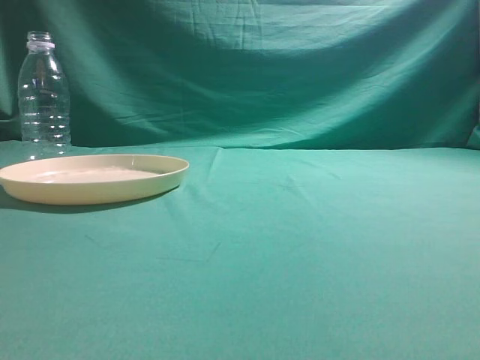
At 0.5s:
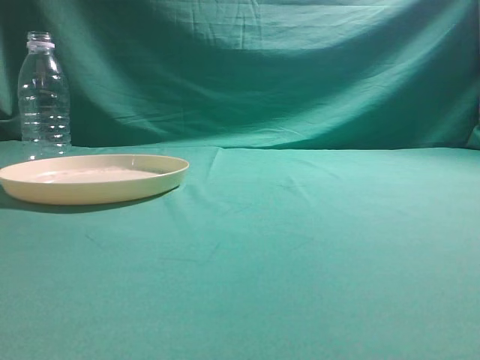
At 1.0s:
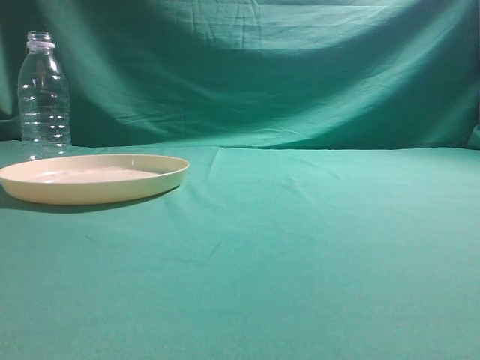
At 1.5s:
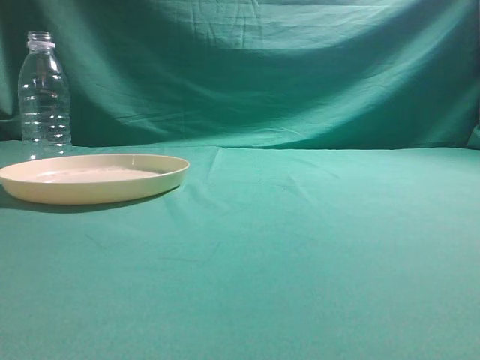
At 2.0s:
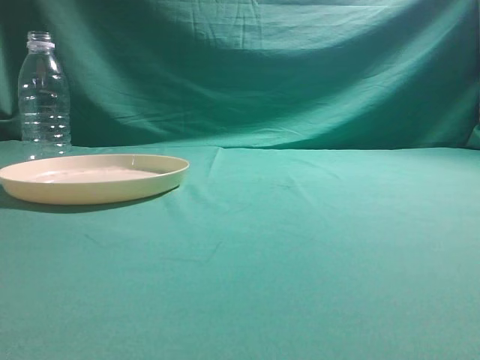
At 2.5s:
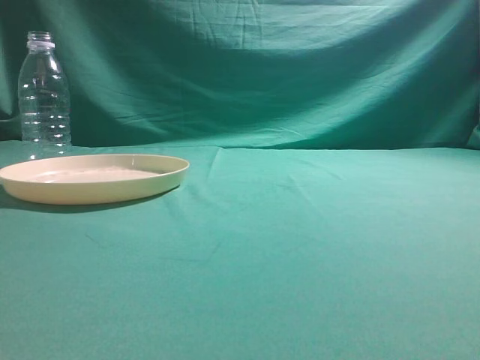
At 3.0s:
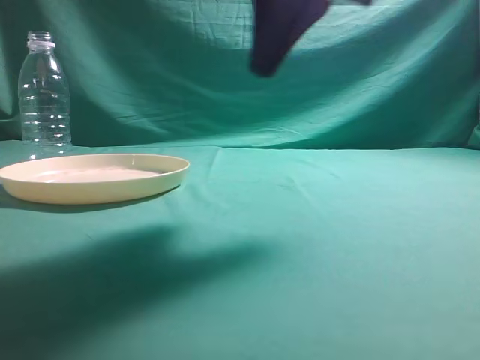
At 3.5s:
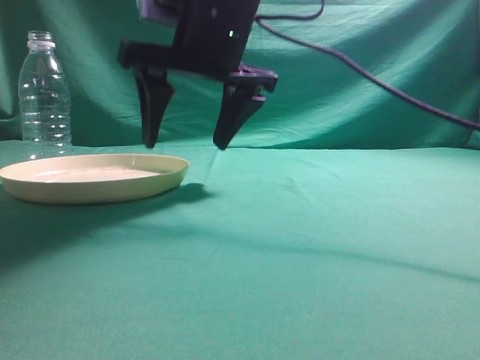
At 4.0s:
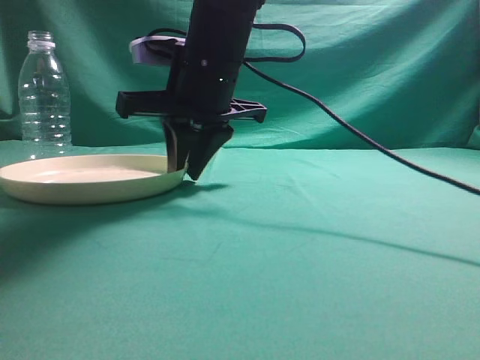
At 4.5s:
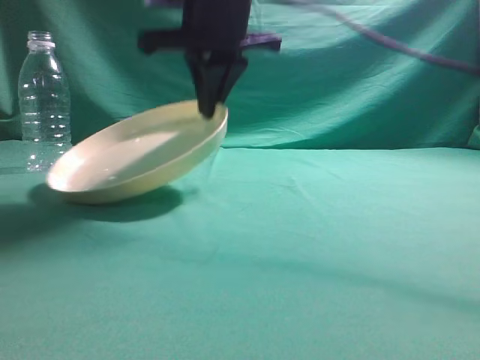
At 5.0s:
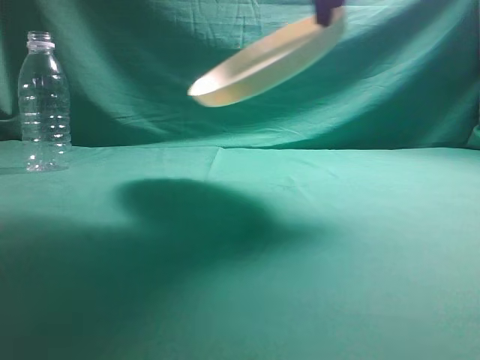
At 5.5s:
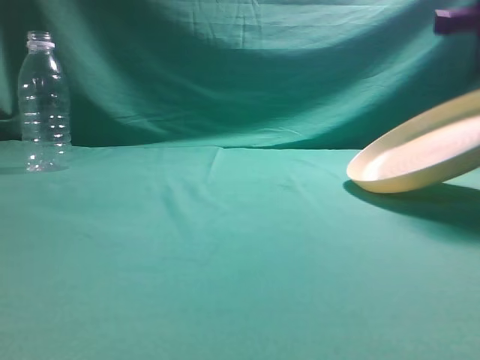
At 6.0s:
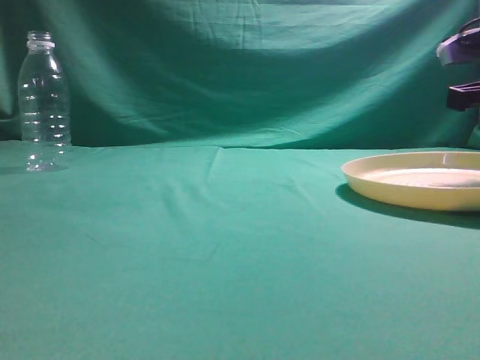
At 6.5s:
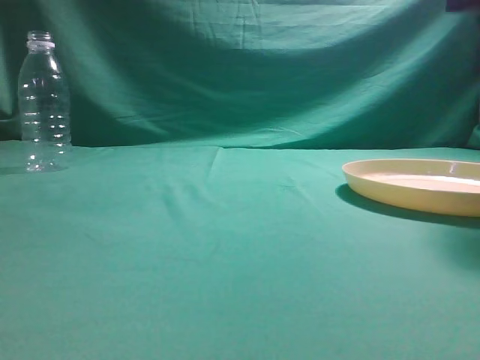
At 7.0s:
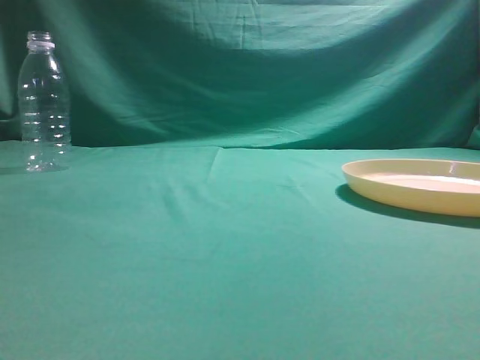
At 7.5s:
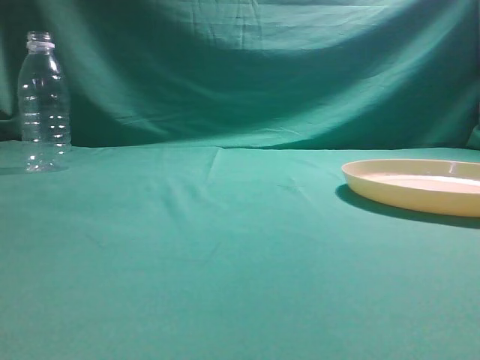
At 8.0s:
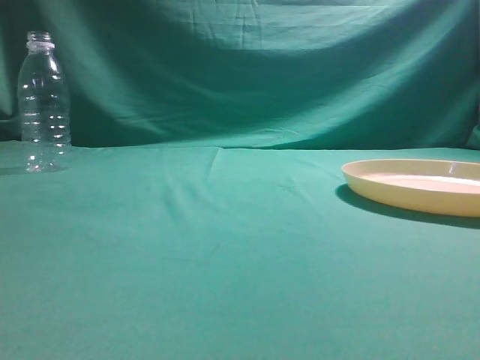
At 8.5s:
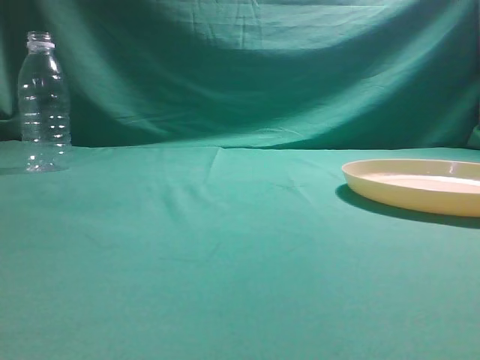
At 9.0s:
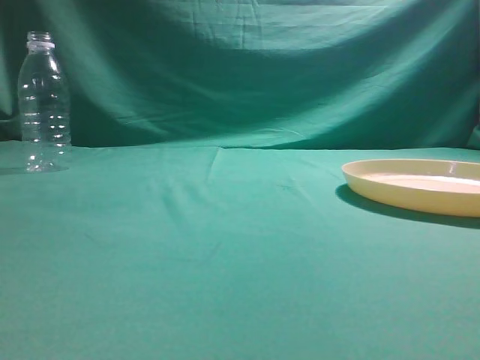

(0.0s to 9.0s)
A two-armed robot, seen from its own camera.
Step, 0.0s - 4.5s: Pick the container that can hold fruits.
Step, 5.0s - 6.0s: Move the picked object to the right side of the table.
2.0s - 4.5s: The right gripper goes some 40 cm to the left and forward, and opens and closes again.
4.5s - 7.0s: The right gripper goes some 35 cm to the right, upward and backward, and opens, then closes again.
